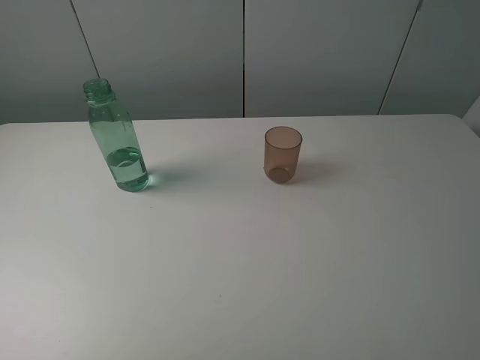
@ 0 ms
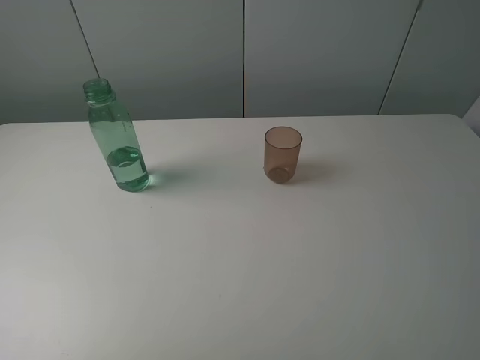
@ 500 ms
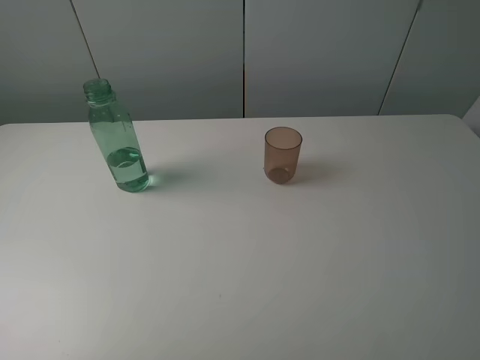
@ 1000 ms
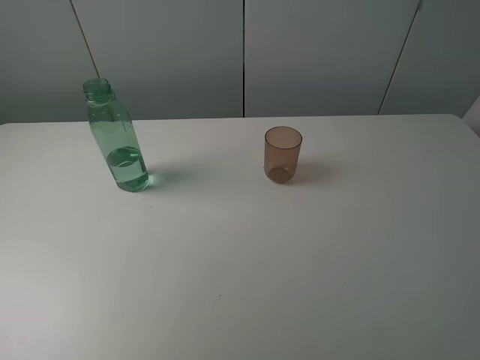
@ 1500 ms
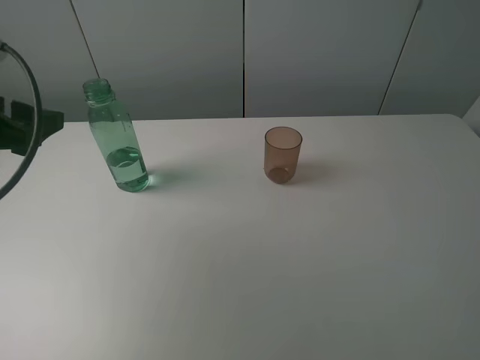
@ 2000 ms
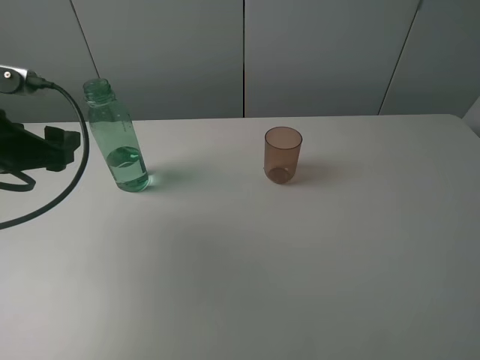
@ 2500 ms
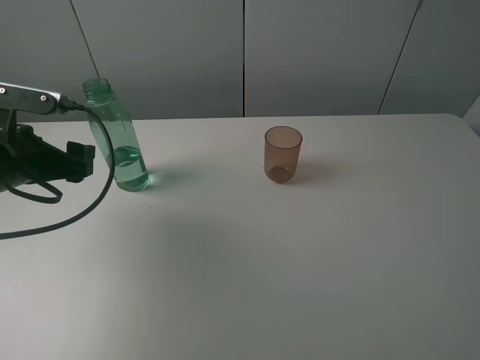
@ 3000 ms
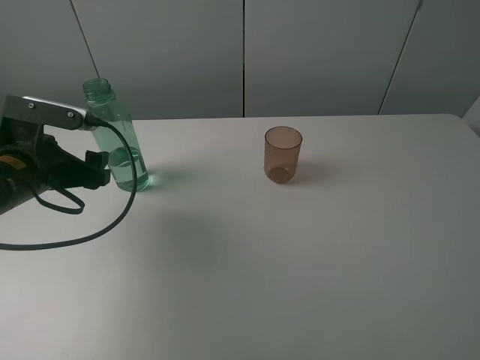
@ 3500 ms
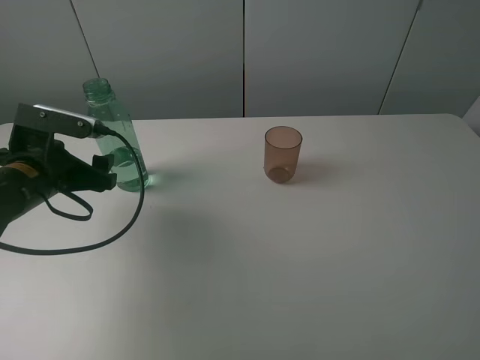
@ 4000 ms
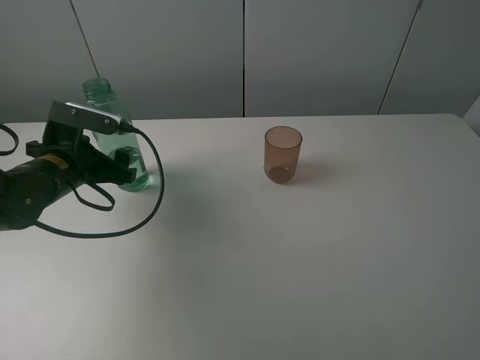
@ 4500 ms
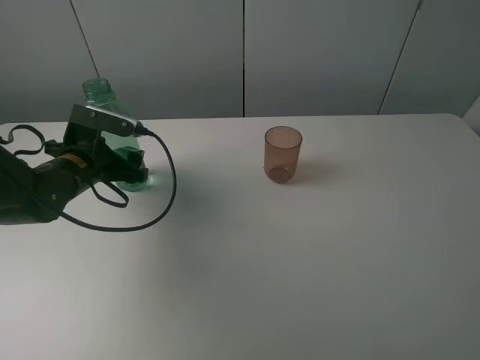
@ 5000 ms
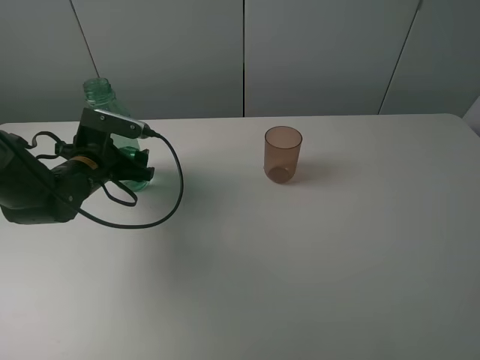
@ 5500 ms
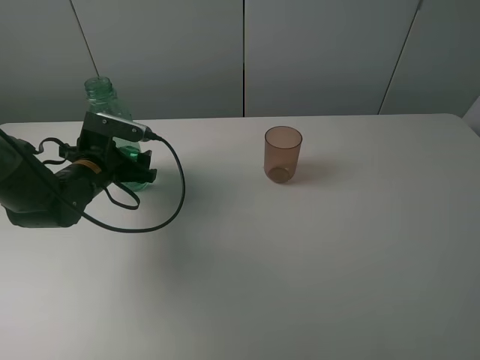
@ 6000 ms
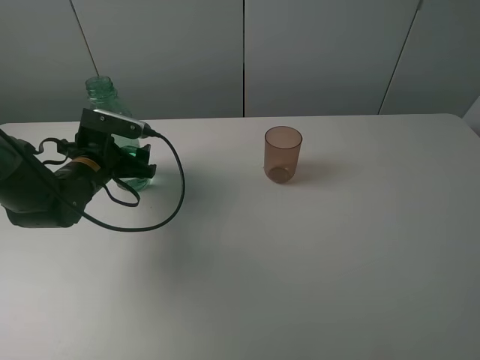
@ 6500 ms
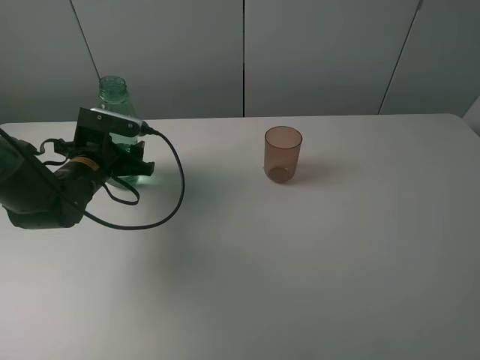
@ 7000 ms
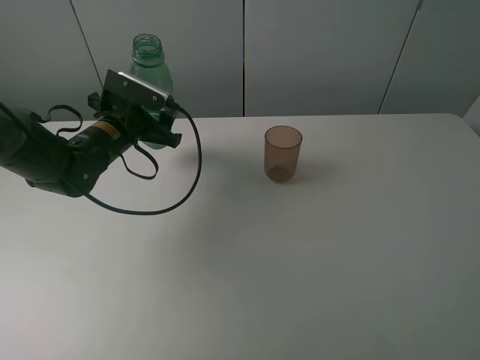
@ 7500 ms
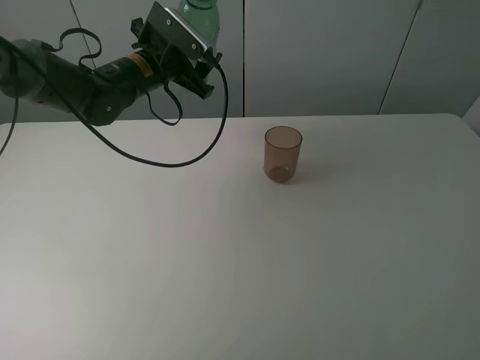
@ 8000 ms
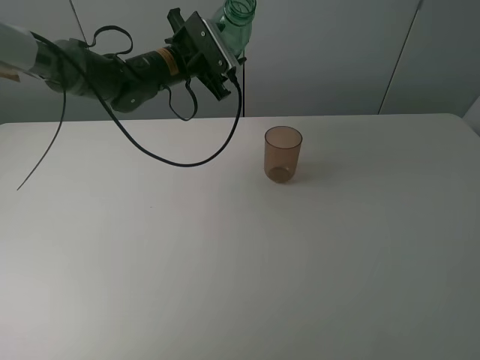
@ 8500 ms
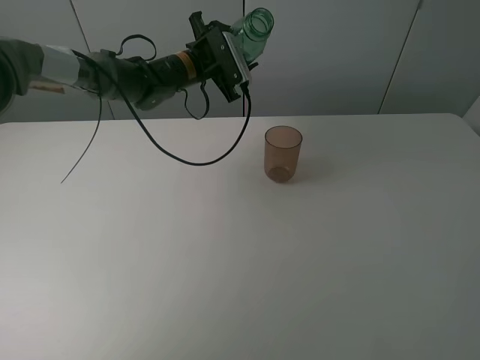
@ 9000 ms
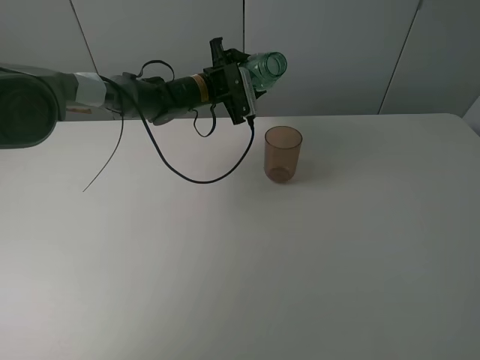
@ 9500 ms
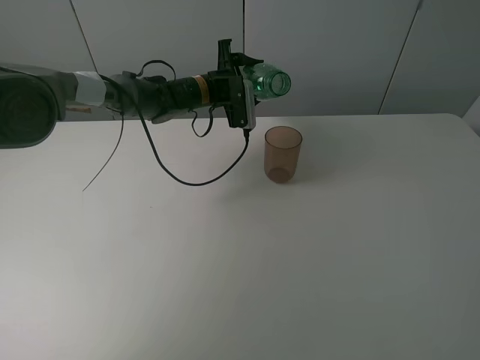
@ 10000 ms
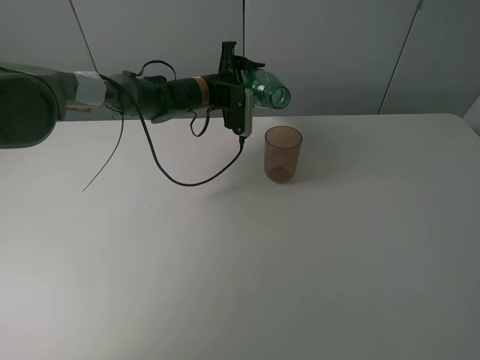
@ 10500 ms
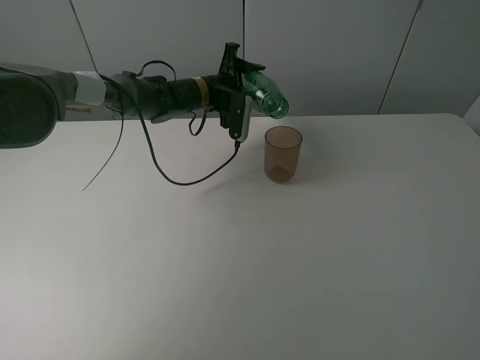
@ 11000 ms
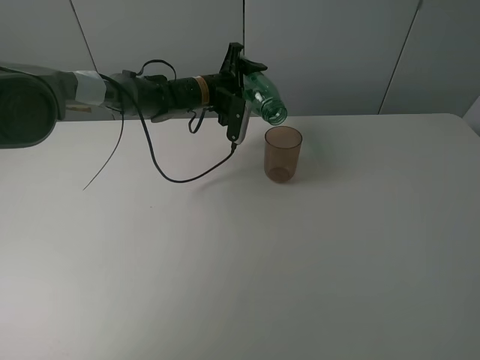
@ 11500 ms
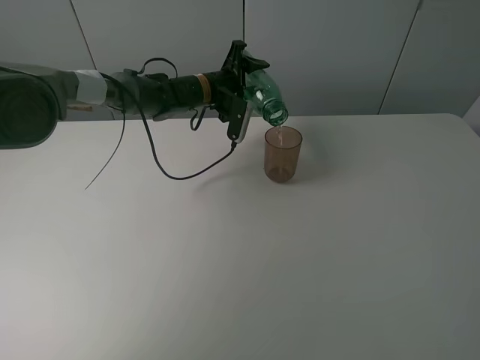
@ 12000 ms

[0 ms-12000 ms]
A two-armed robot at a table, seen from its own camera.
Task of the whole recording: pick up the bottle filled with water and pour it into the pink cup.
Step, 0 ms to 6500 ms: Grasp the green bottle with the left gripper.
0 ms to 2000 ms: The left gripper goes some 20 cm forward.
2000 ms to 4000 ms: The left gripper moves downward, approximately 10 cm.
4000 ms to 6000 ms: The left gripper goes approximately 10 cm forward and downward.
6000 ms to 8000 ms: The left gripper goes about 20 cm upward, forward and to the right, and closes up.
8000 ms to 10000 ms: The left gripper moves to the right, forward and downward, about 15 cm.

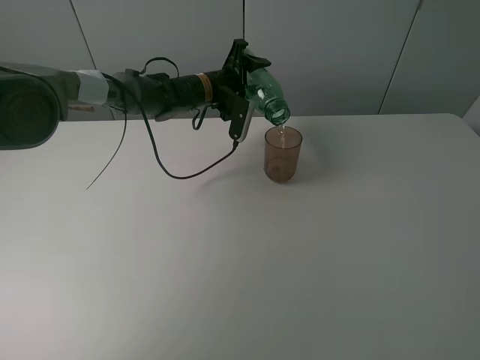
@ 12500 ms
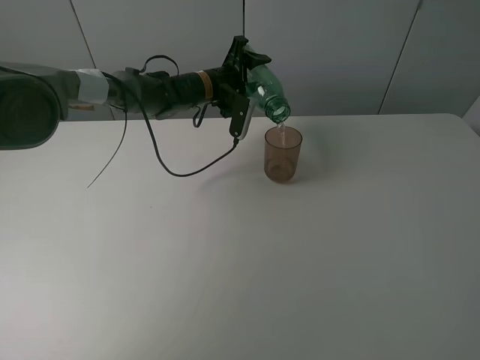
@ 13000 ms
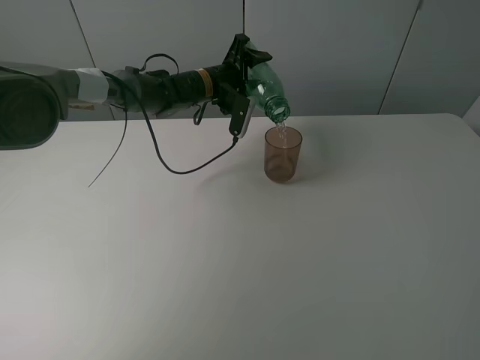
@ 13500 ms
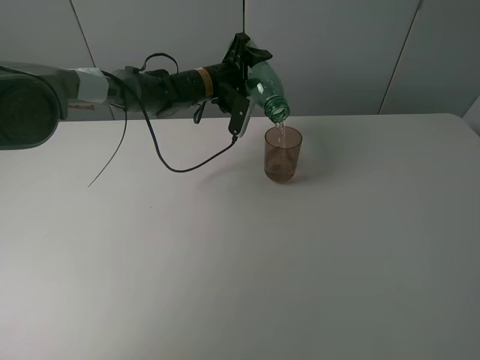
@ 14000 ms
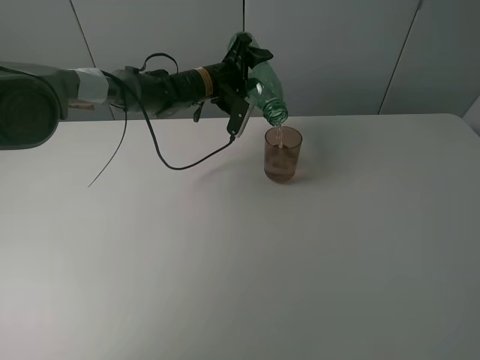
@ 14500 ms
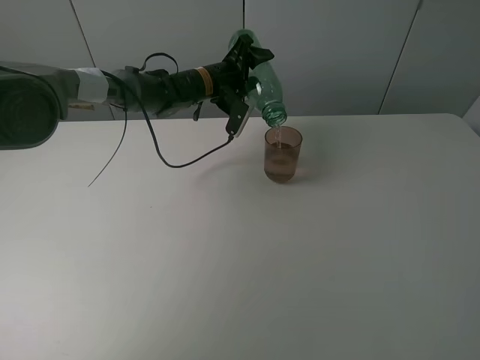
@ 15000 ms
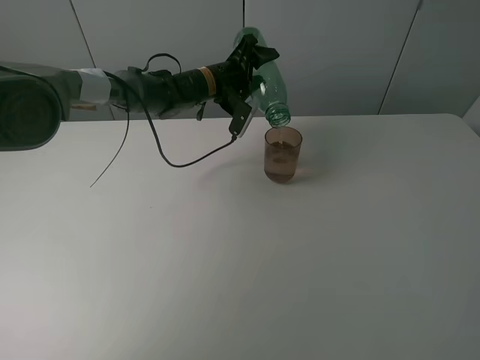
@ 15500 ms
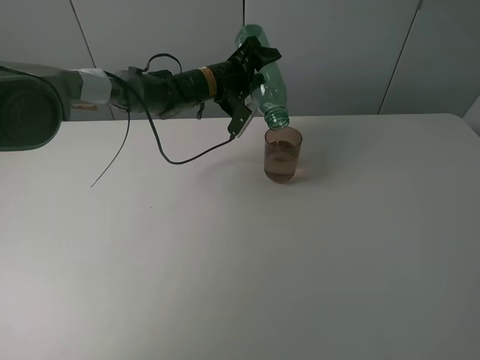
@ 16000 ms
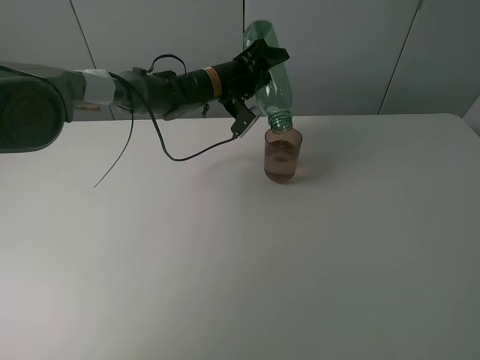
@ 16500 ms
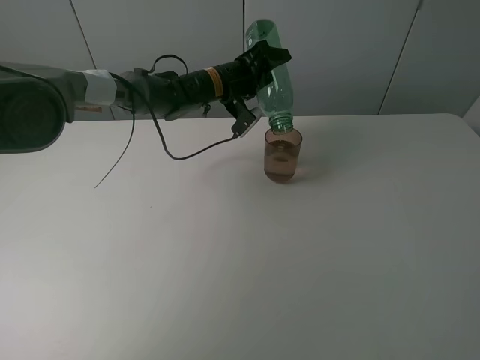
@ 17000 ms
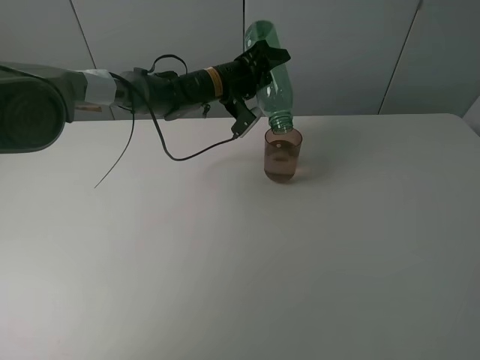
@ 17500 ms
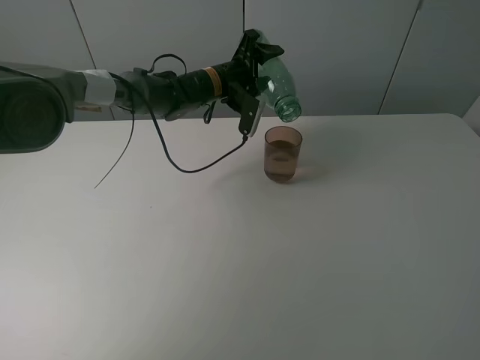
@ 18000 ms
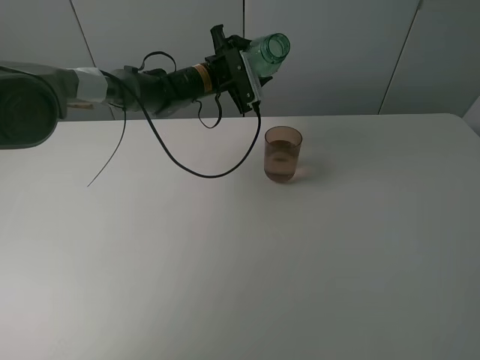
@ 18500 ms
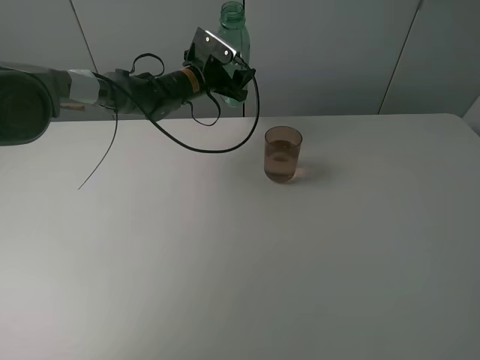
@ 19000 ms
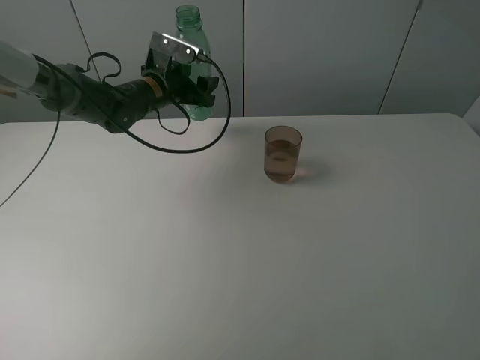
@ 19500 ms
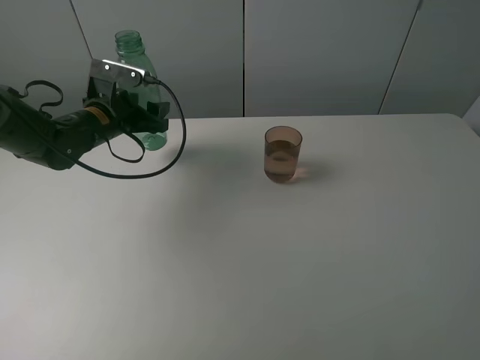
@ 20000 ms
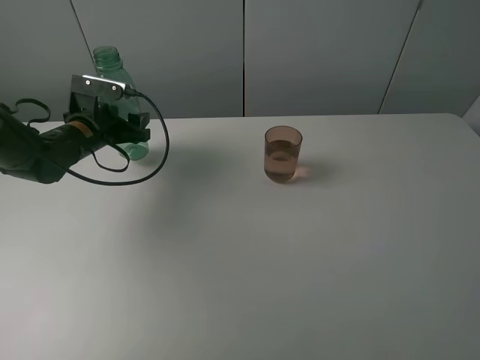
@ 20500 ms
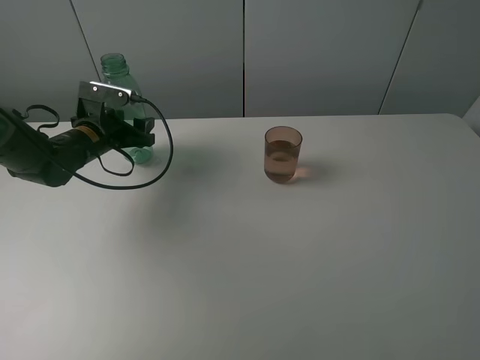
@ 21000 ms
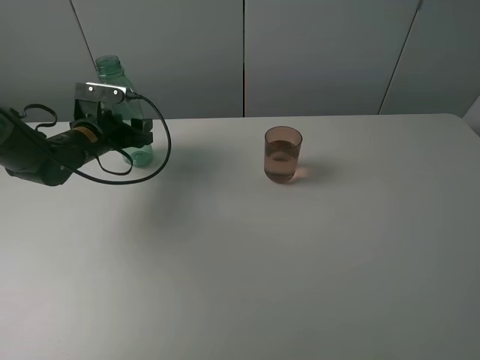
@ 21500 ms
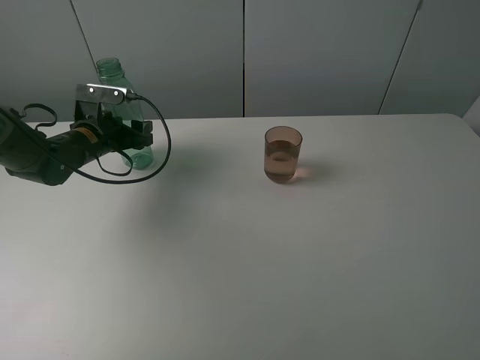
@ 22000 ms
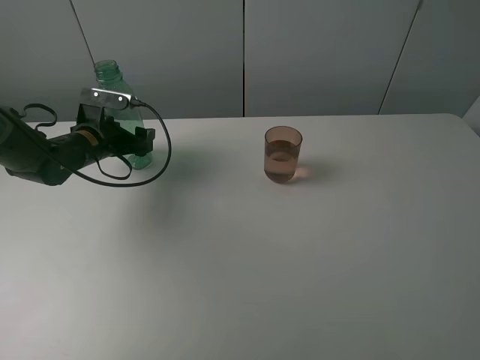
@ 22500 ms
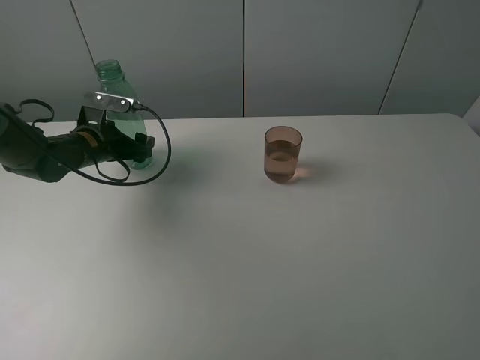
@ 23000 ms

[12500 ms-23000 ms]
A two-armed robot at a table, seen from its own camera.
Task of the whole recording: pick up the bottle filled with water and pour it into the pink cup.
Step, 12500 ms to 18000 ms: Pour water from green bottle to pink cup with the left gripper.
12500 ms to 14500 ms: The grippers make only small movements.
14500 ms to 16500 ms: The grippers make only small movements.
16500 ms to 19000 ms: The left gripper moves to the left, roughly 5 cm.
19000 ms to 21000 ms: The left gripper moves to the left and backward, about 20 cm.
21000 ms to 23000 ms: The left gripper opens up.

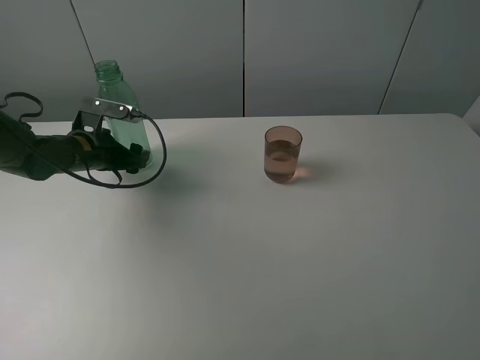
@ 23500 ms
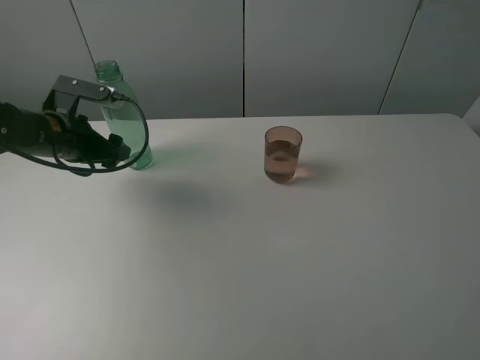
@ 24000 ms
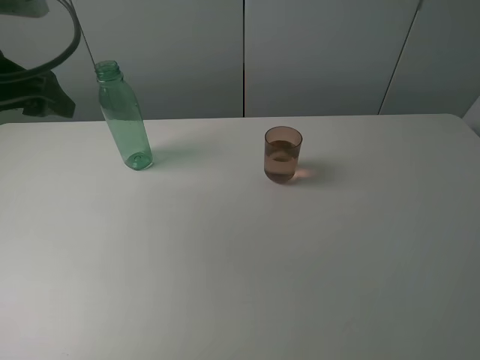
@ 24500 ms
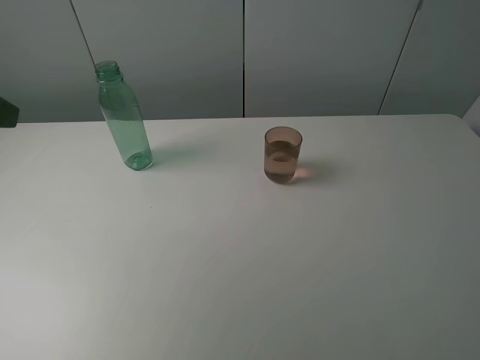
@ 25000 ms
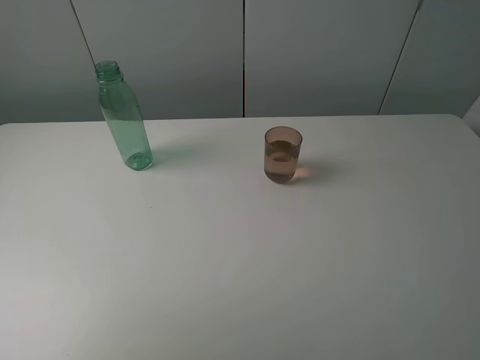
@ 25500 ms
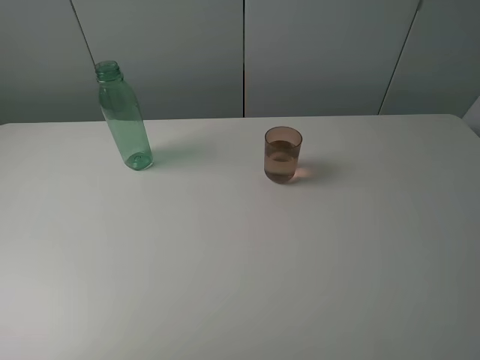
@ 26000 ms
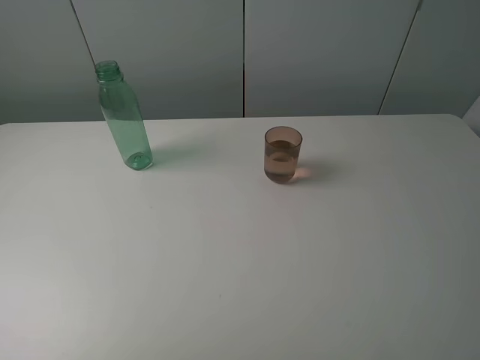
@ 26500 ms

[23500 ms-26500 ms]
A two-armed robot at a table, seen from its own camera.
Task of the whole recording: pick up the bottle filled with water and pour it into the pink cup.
23500 ms to 25000 ms: The left gripper is displaced upward and backward by roughly 30 cm.
